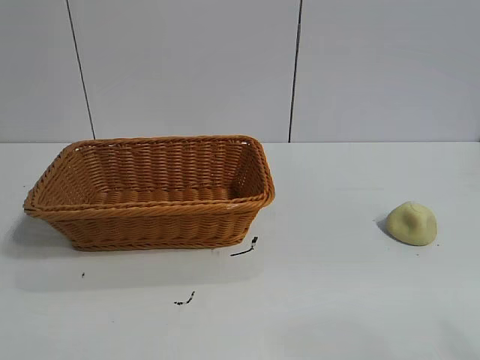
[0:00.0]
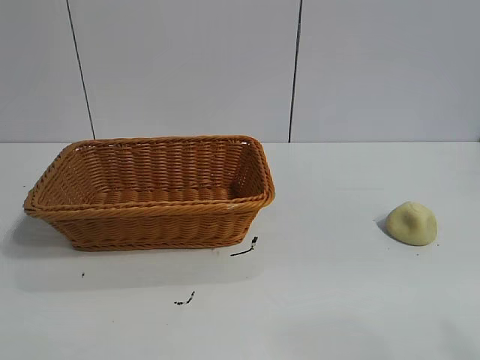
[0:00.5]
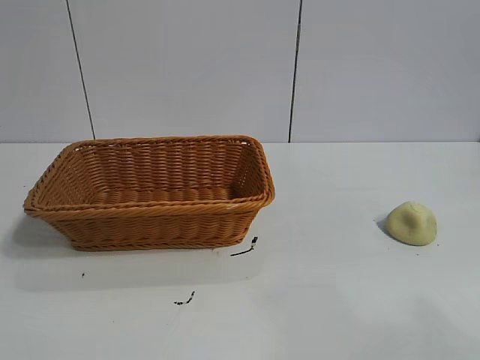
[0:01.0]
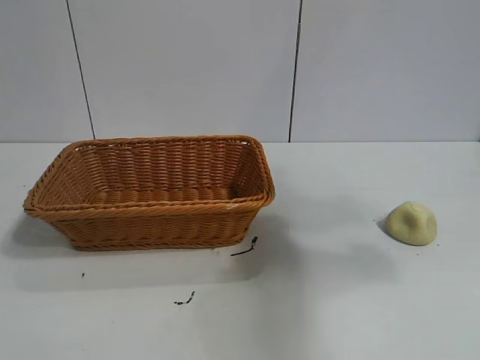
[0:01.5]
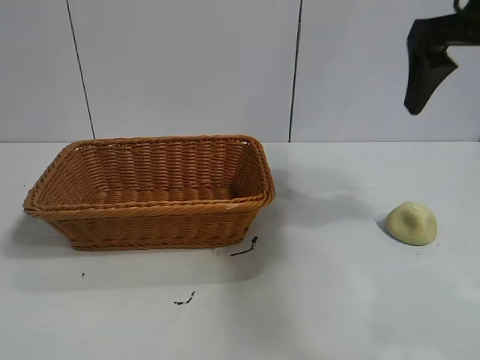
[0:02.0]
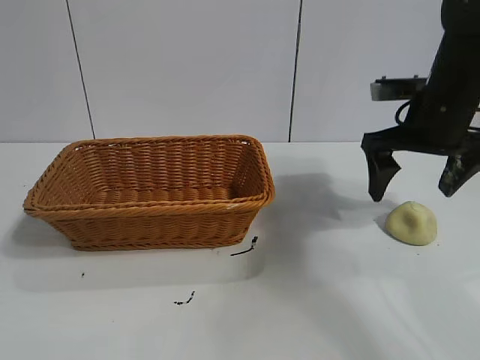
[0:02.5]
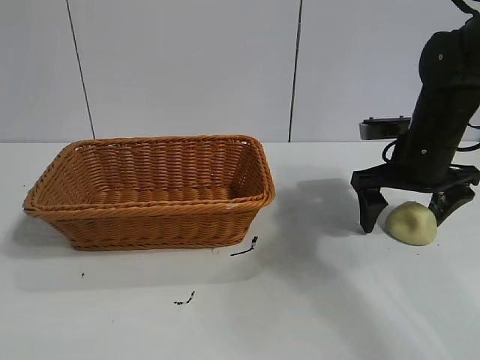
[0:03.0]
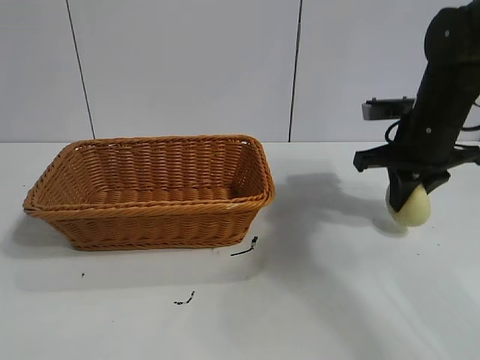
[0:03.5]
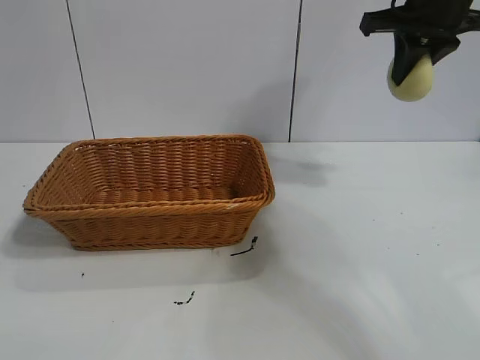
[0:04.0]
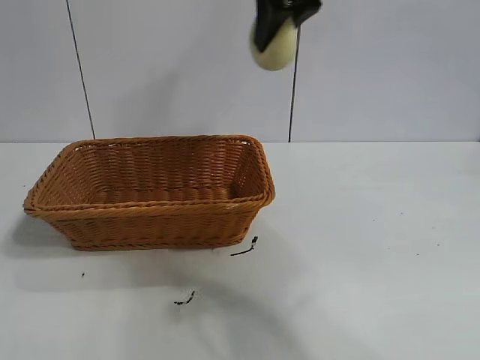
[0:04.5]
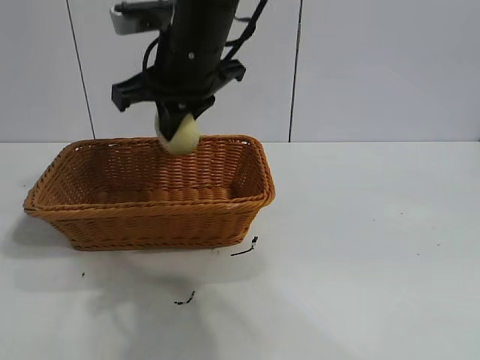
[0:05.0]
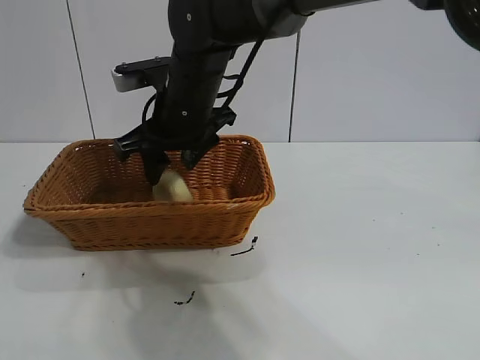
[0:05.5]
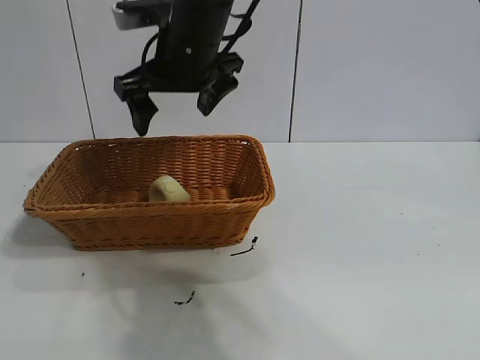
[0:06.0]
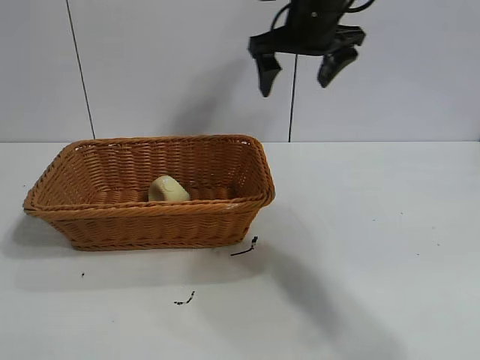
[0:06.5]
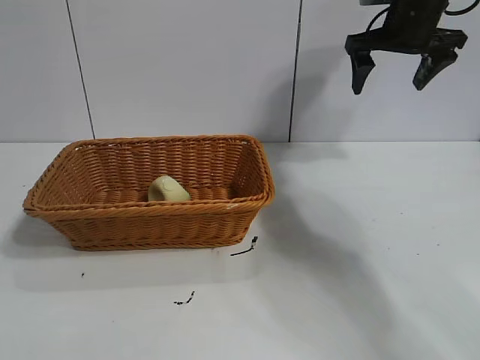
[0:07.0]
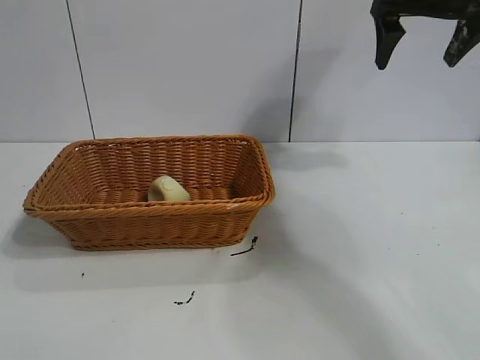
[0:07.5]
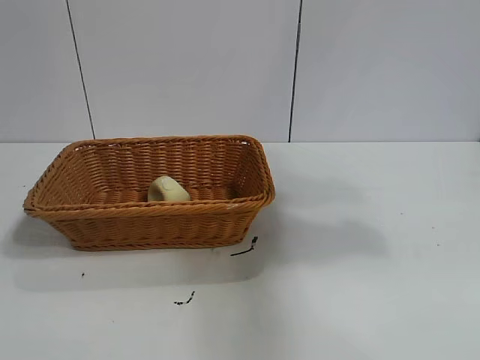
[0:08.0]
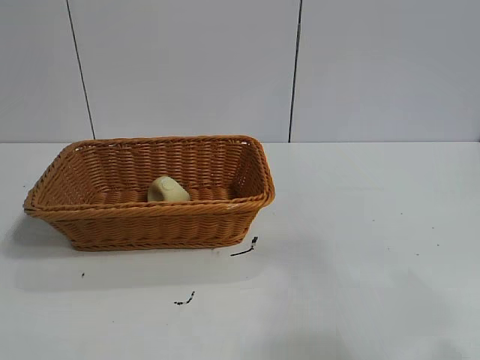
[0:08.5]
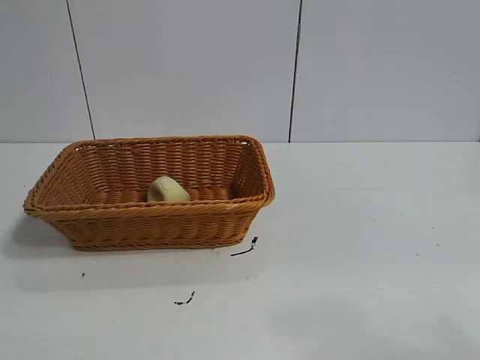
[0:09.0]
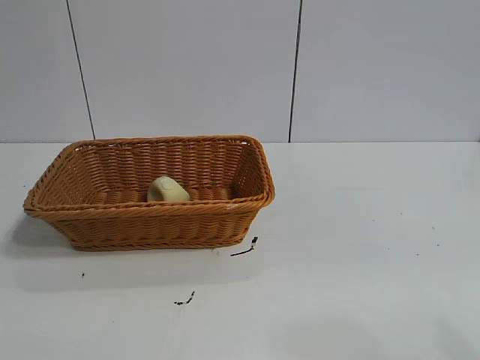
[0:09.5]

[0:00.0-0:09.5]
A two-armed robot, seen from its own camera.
Task of the whole recording: pick up the egg yolk pastry and put it into the basket.
Step, 0:01.0 to 0:03.0: Grasp egg yolk pastry with right gripper.
Step, 0:03.5 to 0:05.5: Place the egg yolk pastry in the basket with right gripper.
